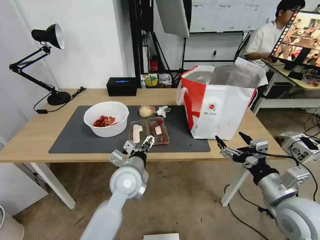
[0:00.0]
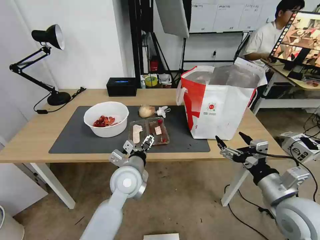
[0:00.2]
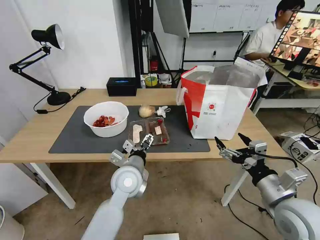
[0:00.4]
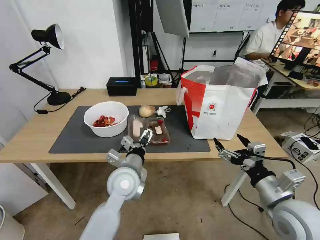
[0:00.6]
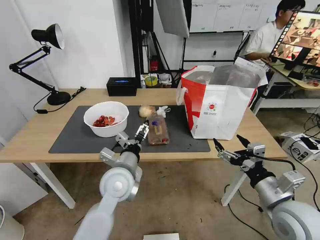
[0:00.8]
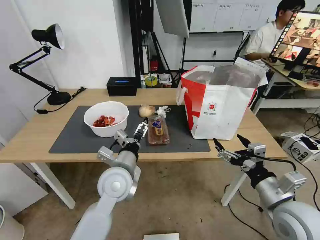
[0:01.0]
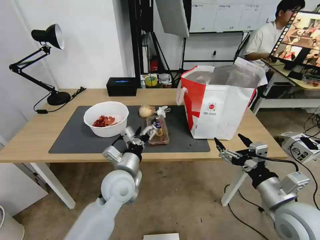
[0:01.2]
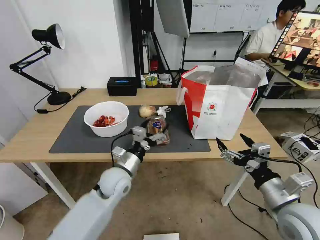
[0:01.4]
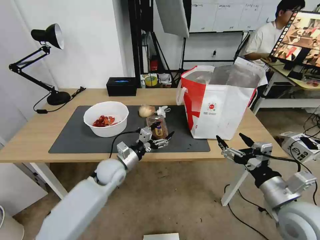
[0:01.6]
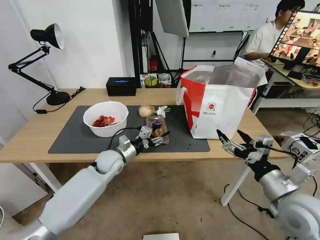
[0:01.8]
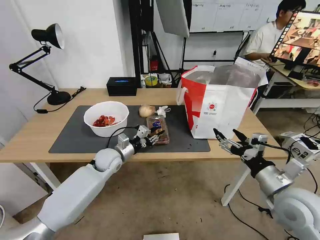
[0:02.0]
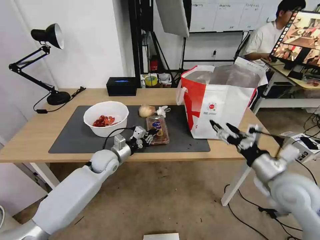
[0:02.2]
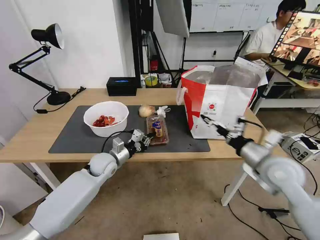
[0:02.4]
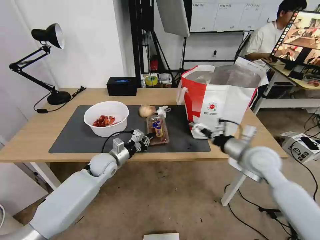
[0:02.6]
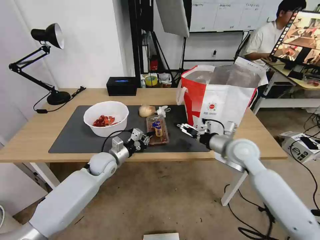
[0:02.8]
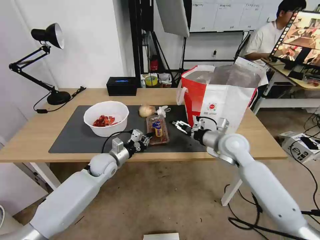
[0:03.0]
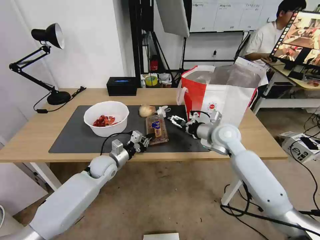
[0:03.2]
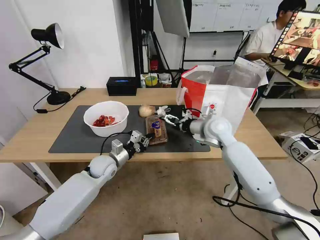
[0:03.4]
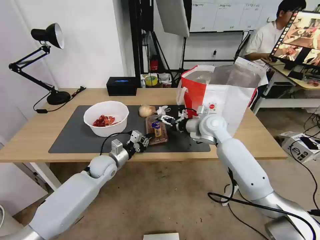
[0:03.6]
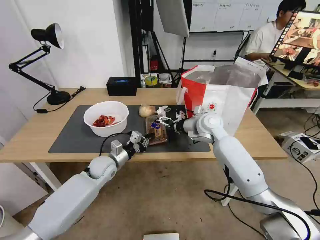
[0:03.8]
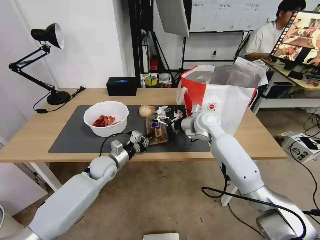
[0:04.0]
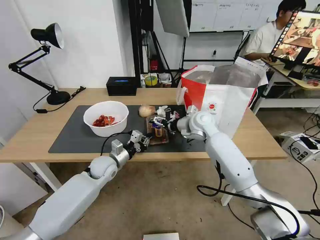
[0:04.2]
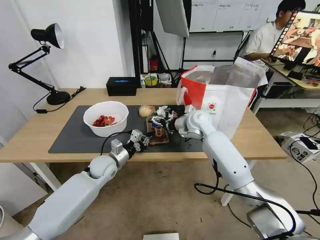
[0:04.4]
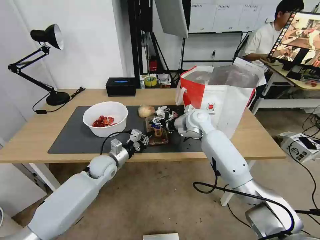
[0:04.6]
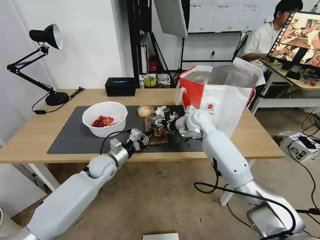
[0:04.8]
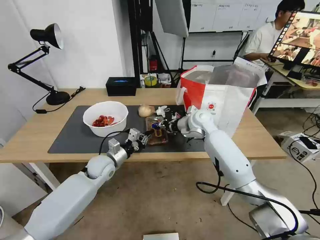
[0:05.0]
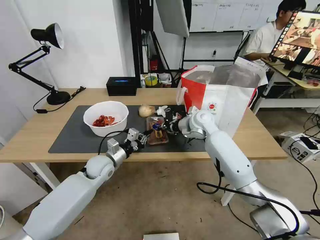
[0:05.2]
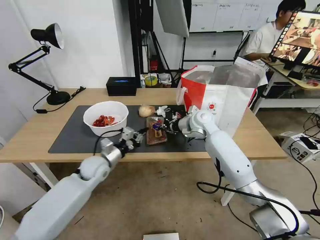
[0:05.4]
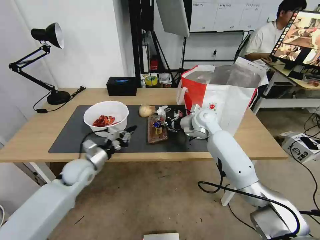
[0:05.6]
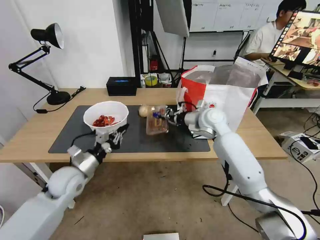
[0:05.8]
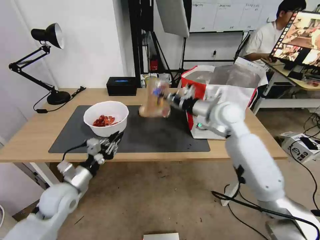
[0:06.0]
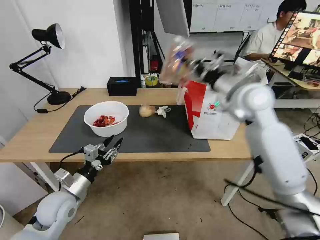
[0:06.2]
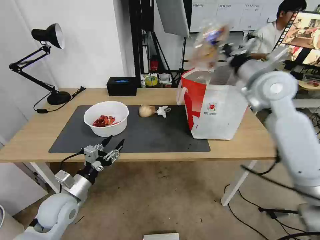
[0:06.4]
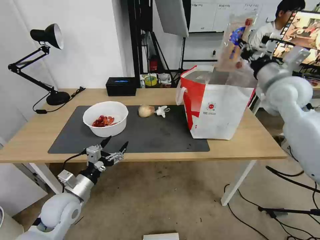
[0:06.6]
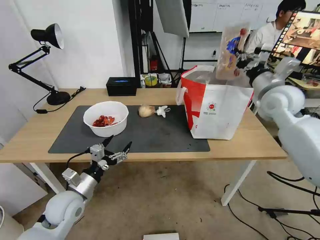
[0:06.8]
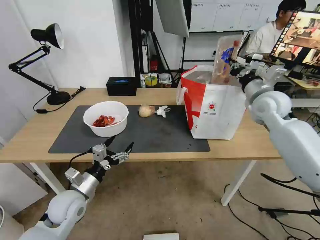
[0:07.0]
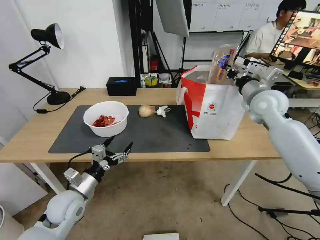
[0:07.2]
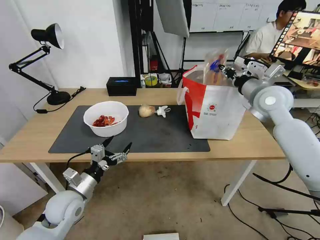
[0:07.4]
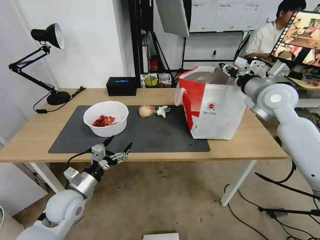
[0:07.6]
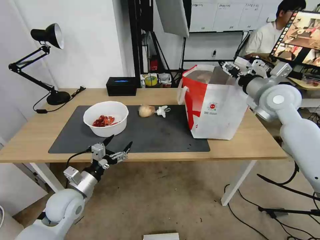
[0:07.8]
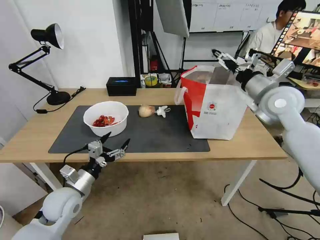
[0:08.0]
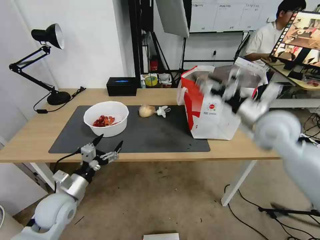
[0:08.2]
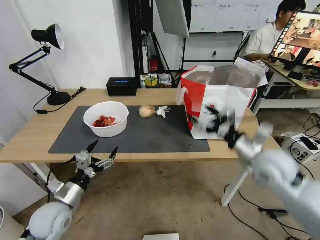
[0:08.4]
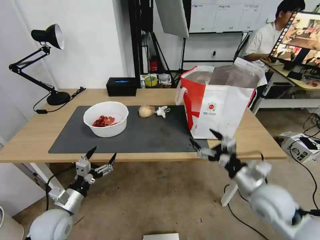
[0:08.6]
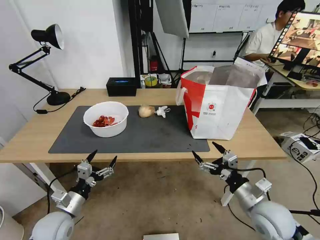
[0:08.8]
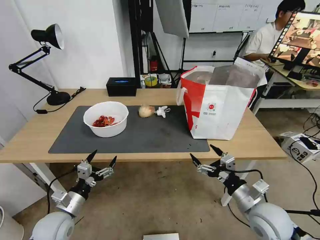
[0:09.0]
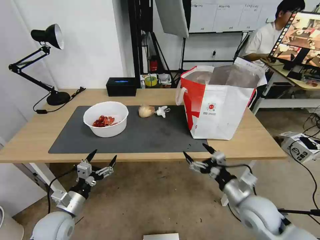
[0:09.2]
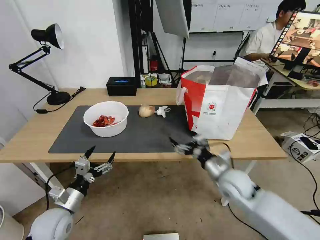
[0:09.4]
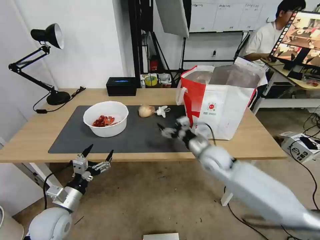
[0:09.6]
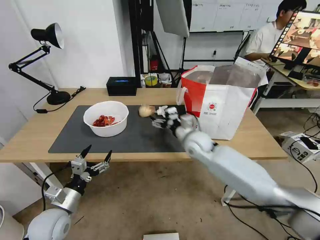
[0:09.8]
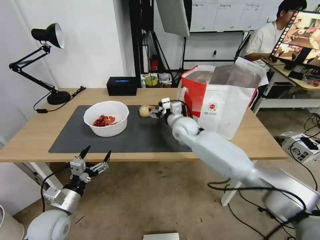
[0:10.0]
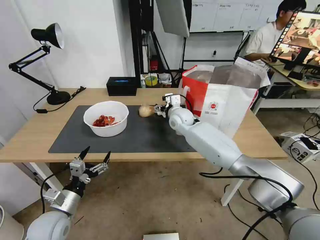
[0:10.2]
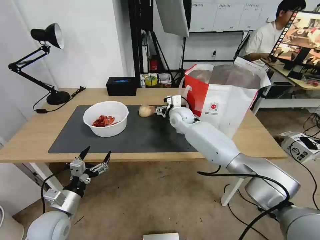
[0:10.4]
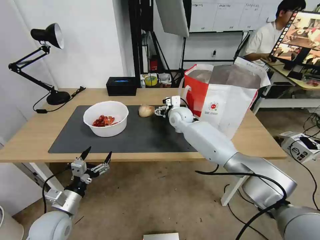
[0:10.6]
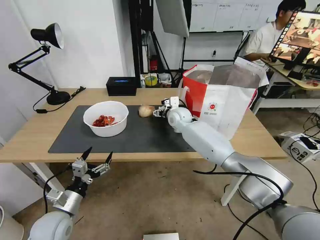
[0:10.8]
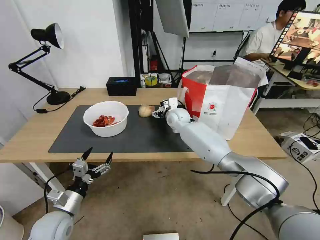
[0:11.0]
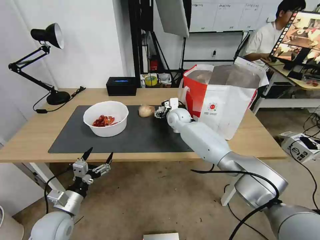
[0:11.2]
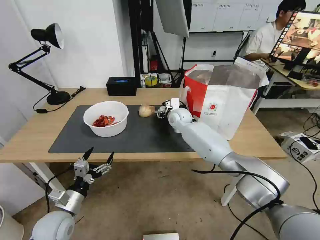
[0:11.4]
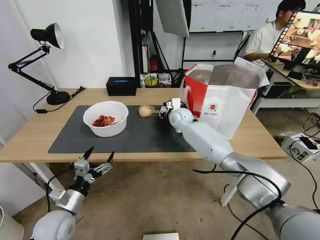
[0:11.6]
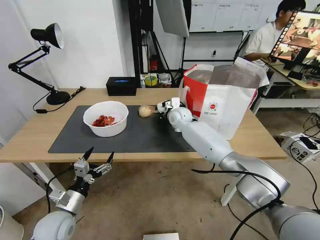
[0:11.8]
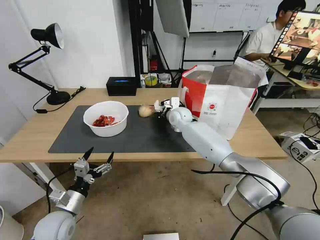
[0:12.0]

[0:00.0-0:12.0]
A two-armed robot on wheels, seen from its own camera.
Task of the whole recording: Pick up the trash from the table and place it into the takeout bag.
0:00.0 to 0:01.6: The left gripper shifts approximately 15 cm forward, to the left and downward.
0:01.6 to 0:03.0: The left gripper ends up some 5 cm from where it was, and closes up. The right gripper moves forward, roughly 25 cm.
0:03.0 to 0:04.4: The right gripper heads forward and to the left, covering some 15 cm.
0:04.4 to 0:06.0: The left gripper travels backward and to the left by about 15 cm. The right gripper shifts approximately 10 cm upward, backward and to the right, and closes its fingers.
0:06.0 to 0:07.6: The right gripper goes about 15 cm to the right, and opens up; the left gripper opens.
0:07.6 to 0:09.0: The left gripper ends up about 5 cm from where it was. Meanwhile the right gripper moves backward and downward, about 35 cm, and opens.
0:09.0 to 0:10.4: The right gripper is displaced forward and to the left by about 40 cm.
0:10.4 to 0:12.0: The right gripper closes its fingers.

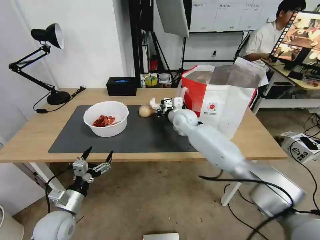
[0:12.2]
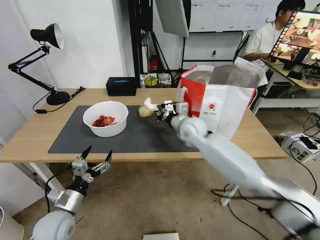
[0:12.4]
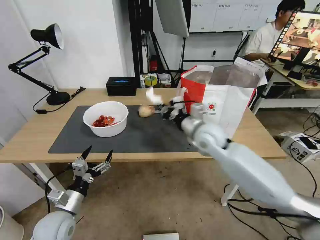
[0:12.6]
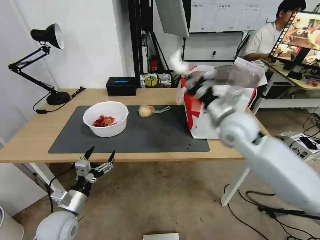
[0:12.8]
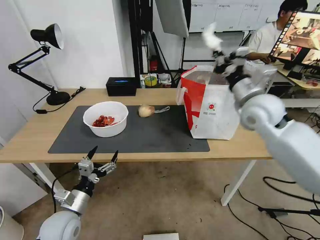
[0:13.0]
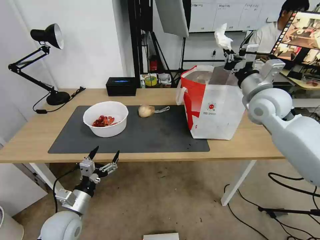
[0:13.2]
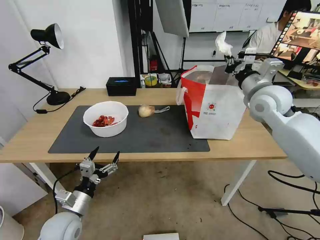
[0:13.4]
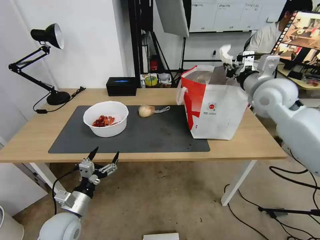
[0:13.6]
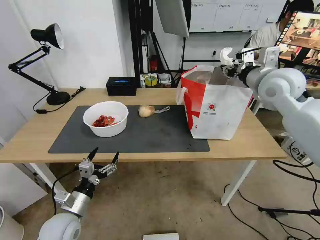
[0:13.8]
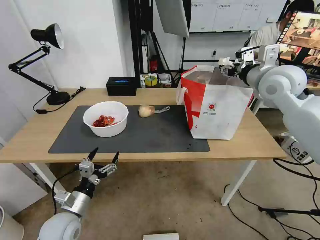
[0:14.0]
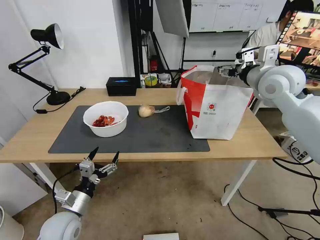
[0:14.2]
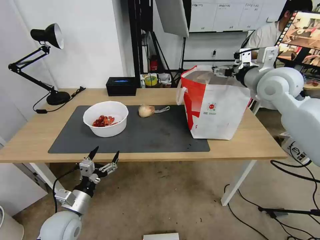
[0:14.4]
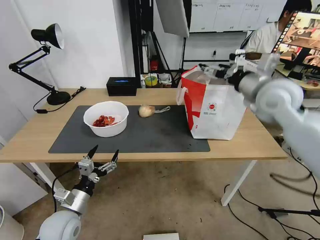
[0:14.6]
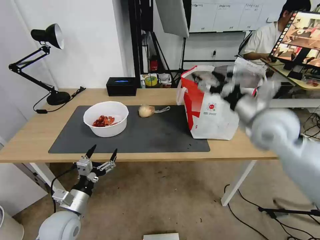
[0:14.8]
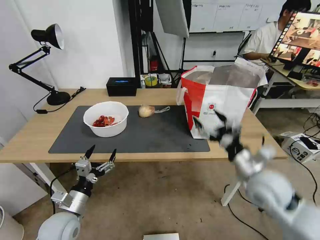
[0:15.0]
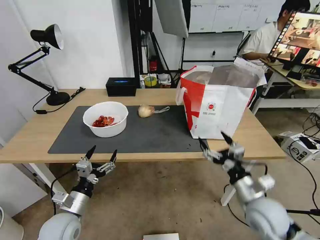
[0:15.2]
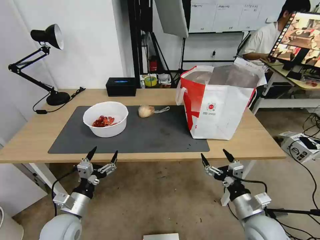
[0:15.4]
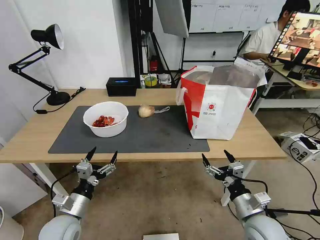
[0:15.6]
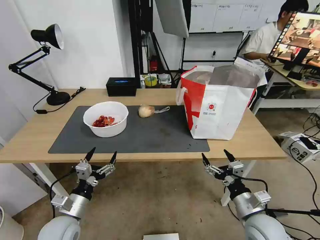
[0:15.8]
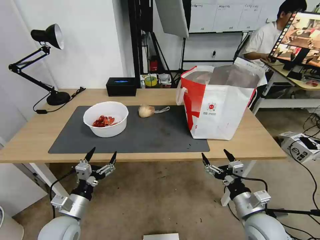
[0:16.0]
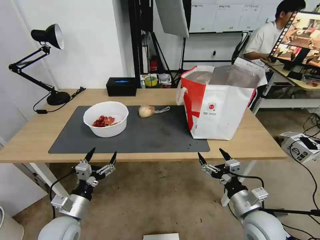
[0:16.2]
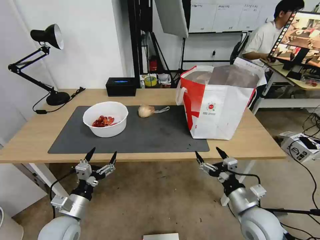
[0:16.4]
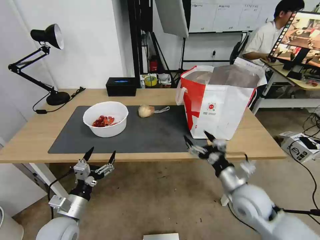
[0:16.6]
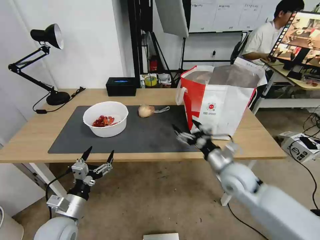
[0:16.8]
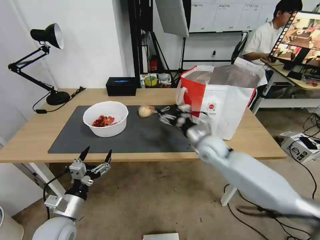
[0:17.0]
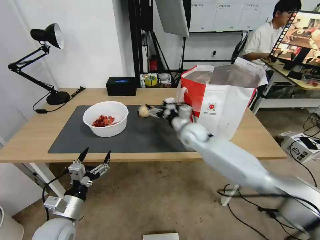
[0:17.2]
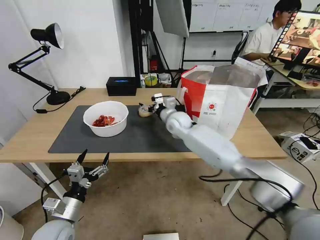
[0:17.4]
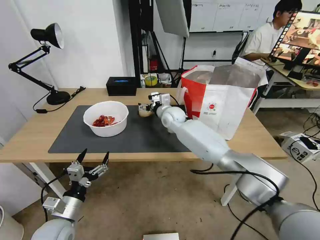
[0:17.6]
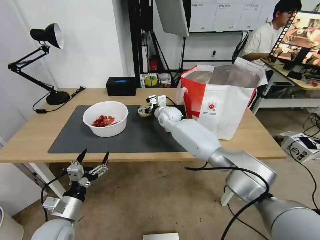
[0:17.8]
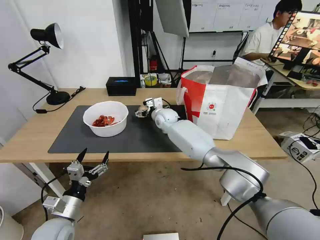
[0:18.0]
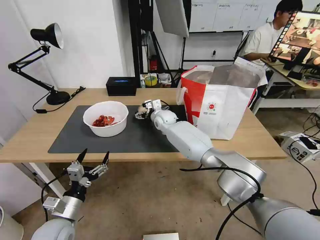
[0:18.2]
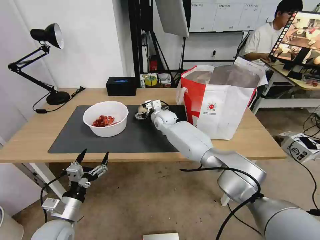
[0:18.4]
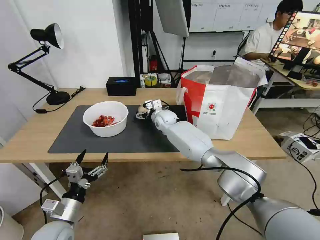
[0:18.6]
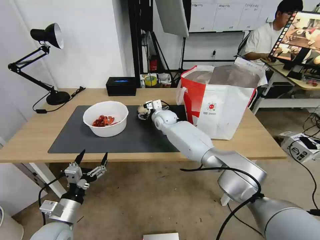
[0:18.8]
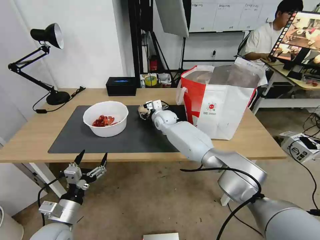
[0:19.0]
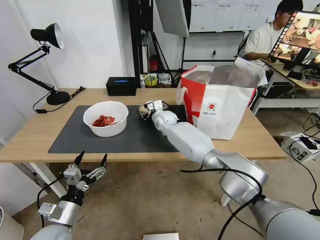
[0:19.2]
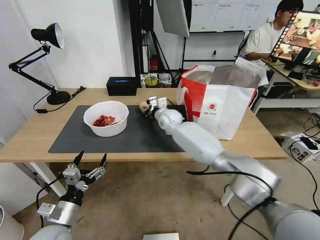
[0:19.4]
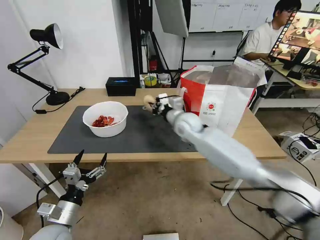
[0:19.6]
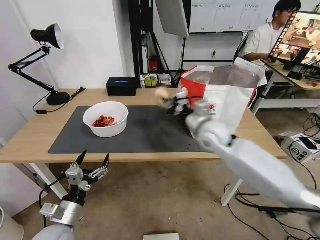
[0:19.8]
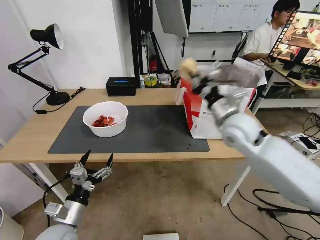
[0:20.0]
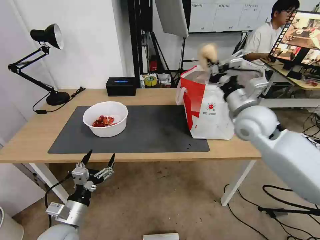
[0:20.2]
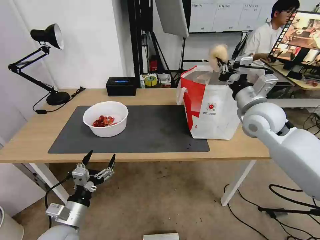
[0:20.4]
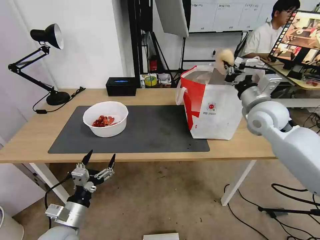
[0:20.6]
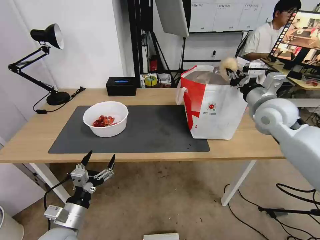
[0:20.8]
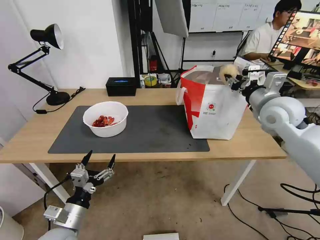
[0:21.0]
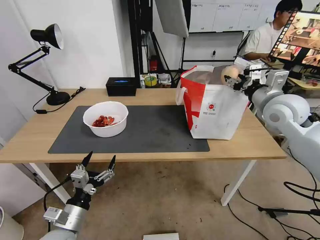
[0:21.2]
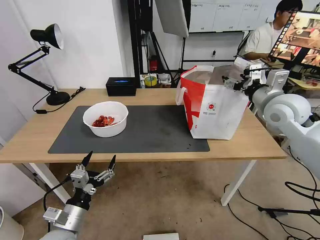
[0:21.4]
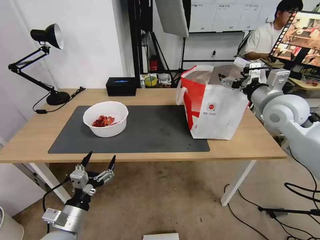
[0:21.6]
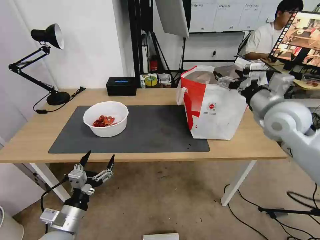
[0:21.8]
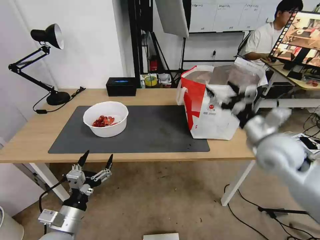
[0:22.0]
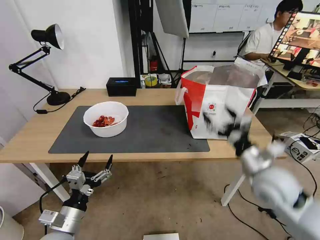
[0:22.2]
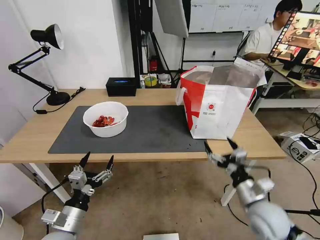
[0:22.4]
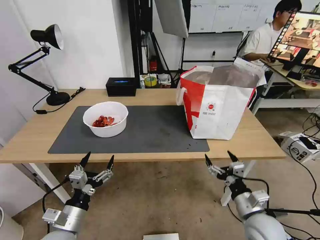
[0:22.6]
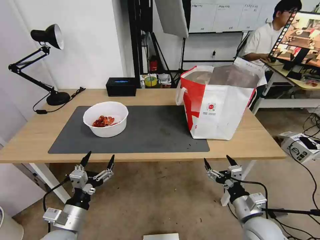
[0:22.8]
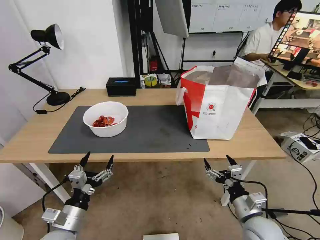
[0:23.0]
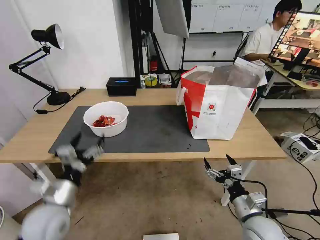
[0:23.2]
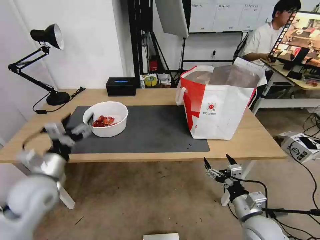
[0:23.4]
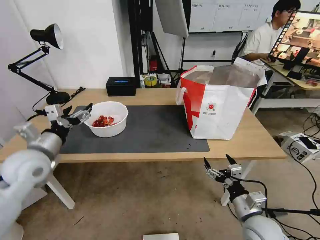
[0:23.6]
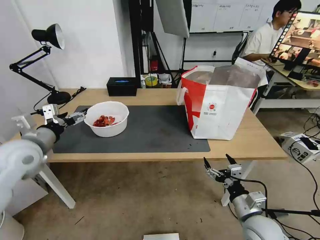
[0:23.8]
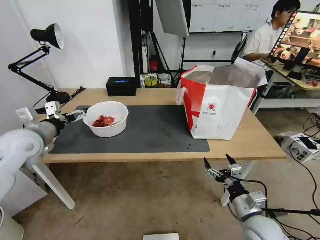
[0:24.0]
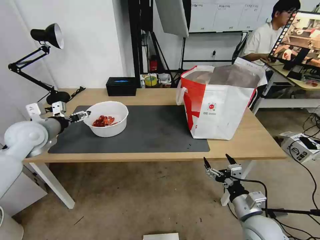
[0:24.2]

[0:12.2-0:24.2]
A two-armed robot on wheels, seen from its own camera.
Task of the whole recording: Pick up the trash from the table and place it into the takeout bag.
0:12.2 to 0:13.8: The right gripper shifts approximately 30 cm to the right, upward and backward, and opens its fingers.
0:13.8 to 0:15.2: The right gripper goes roughly 35 cm downward and backward, and opens.
0:15.2 to 0:16.6: The grippers move only a little.
0:16.6 to 0:18.2: The right gripper travels forward and to the left by some 40 cm.
0:18.2 to 0:19.8: The right gripper goes roughly 25 cm backward, to the right and upward, and closes up.
0:19.8 to 0:21.2: The right gripper moves to the right and upward, about 20 cm, and opens up.
0:21.2 to 0:22.6: The right gripper heads downward and backward, covering roughly 35 cm, and opens its fingers.
0:22.6 to 0:24.2: The left gripper moves forward, upward and to the left, some 30 cm.
